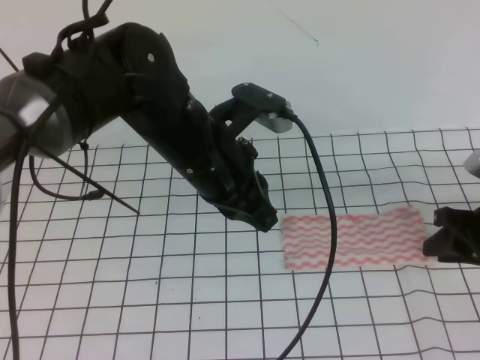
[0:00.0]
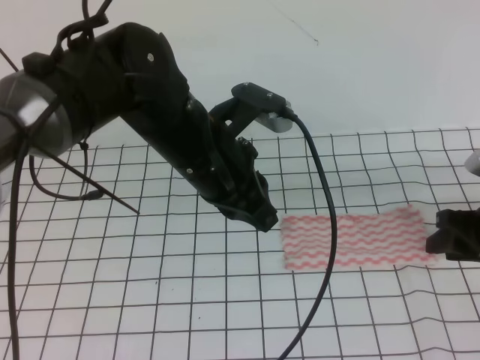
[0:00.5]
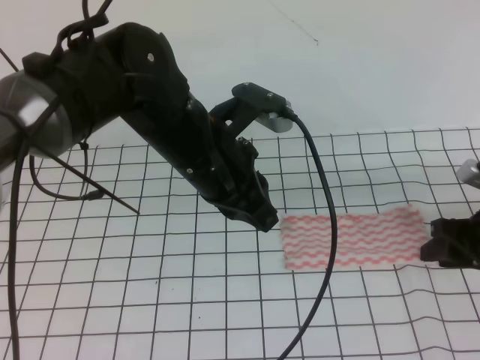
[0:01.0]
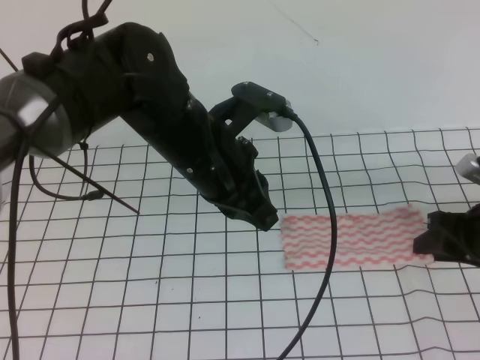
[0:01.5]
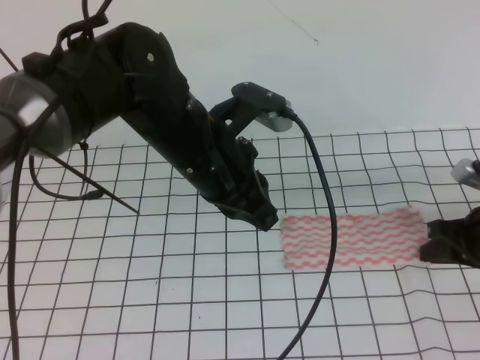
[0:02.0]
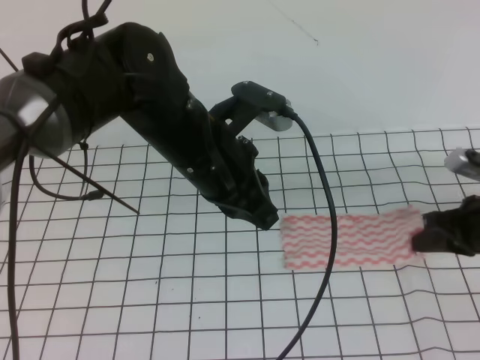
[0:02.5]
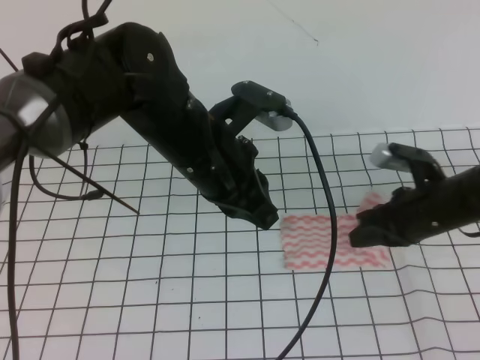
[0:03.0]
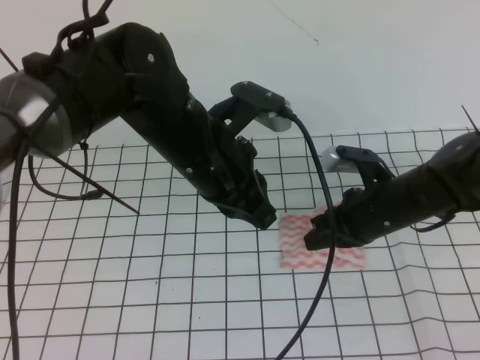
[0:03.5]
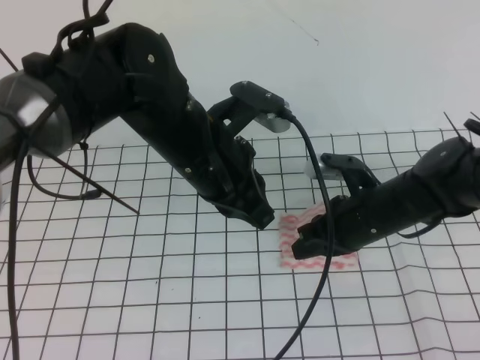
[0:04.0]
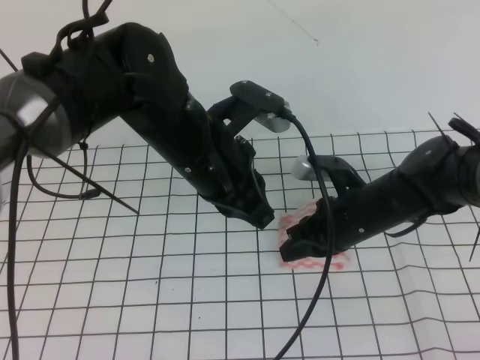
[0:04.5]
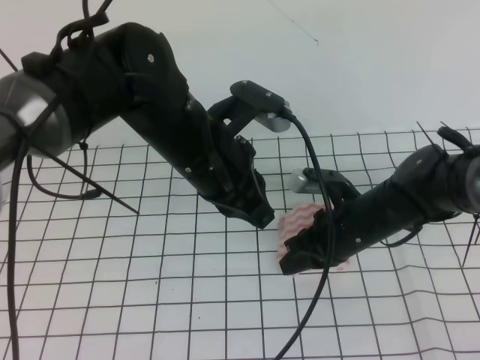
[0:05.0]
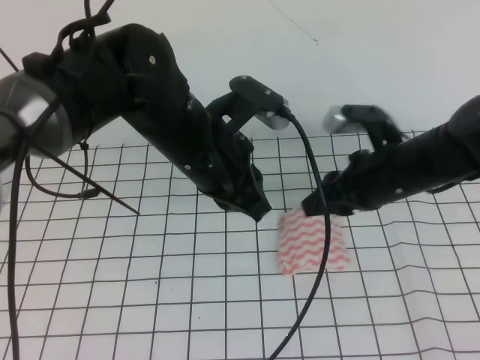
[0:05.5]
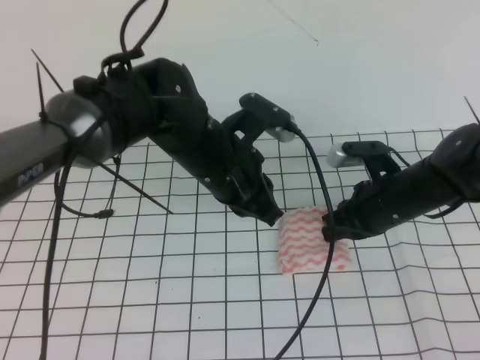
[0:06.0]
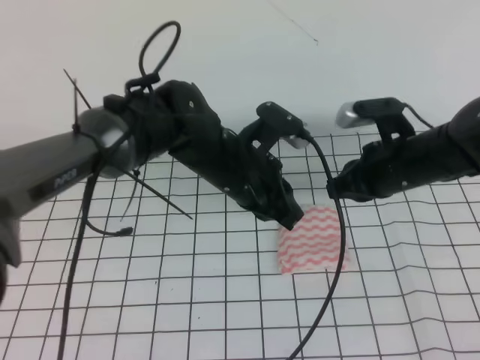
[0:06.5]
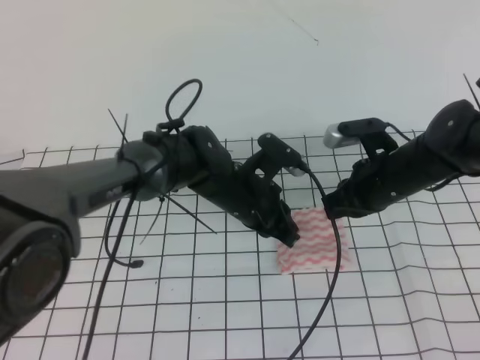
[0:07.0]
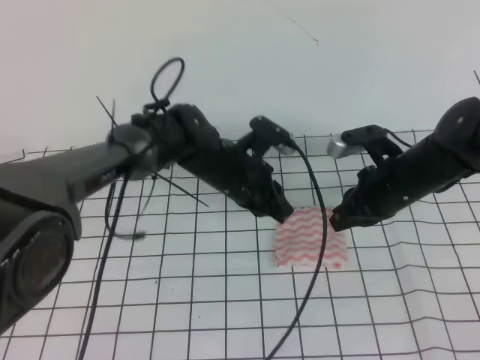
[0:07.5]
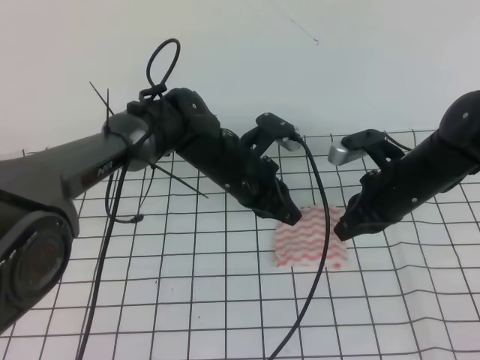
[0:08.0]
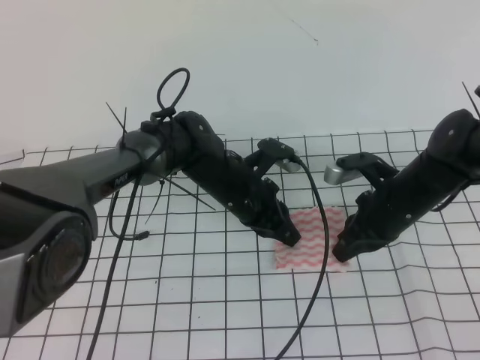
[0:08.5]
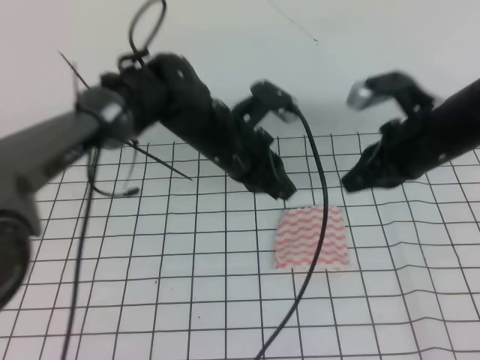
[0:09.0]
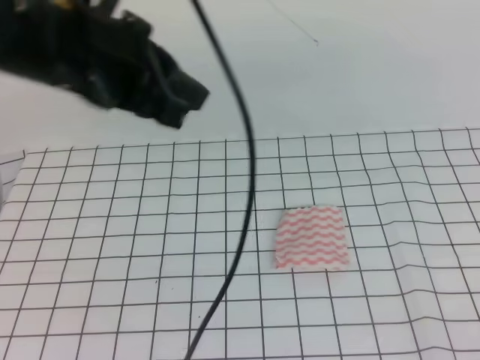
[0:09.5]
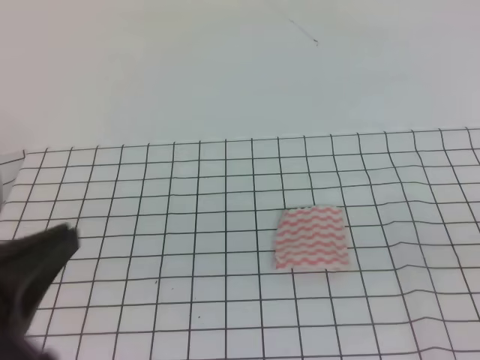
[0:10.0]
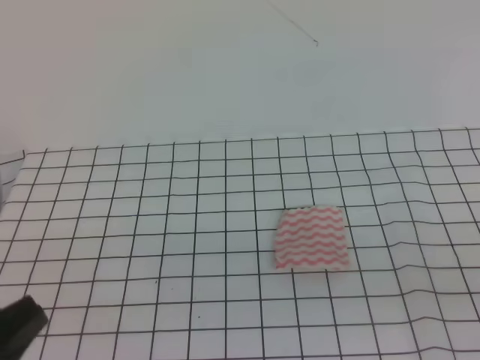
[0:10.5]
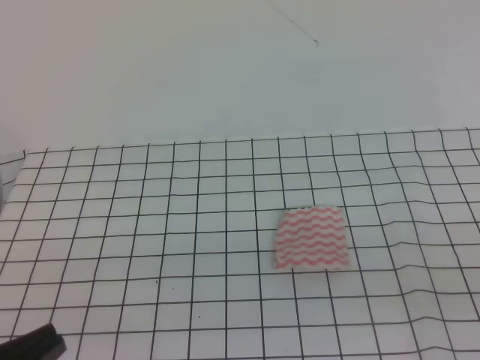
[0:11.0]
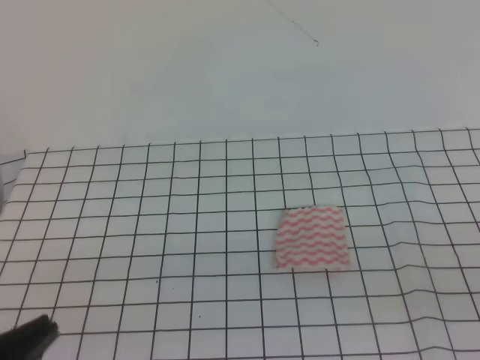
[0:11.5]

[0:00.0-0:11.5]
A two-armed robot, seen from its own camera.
0:00.0 to 0:02.0: The grippers make only small movements.
0:02.0 to 0:04.0: The right gripper shifts about 15 cm to the left, and closes up.
0:04.0 to 0:06.0: The left gripper moves about 5 cm; the right gripper opens and closes again.
0:06.0 to 0:07.5: The left gripper travels downward and forward by roughly 10 cm.
0:07.5 to 0:09.5: The right gripper is displaced upward and backward by some 30 cm, while the left gripper shifts about 30 cm upward, backward and to the left.
0:09.5 to 0:11.5: The right gripper is displaced downward and backward by some 25 cm, while the left gripper is displaced backward, downward and to the left by approximately 30 cm.
